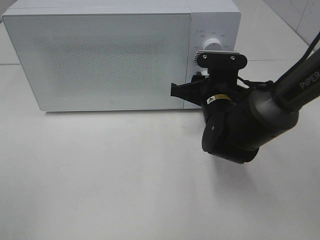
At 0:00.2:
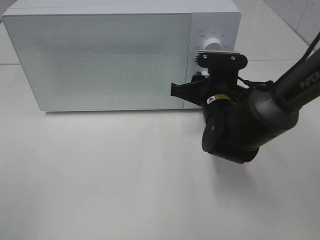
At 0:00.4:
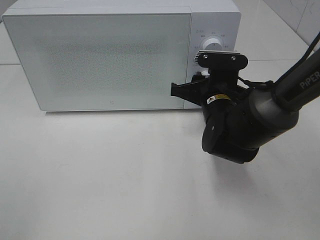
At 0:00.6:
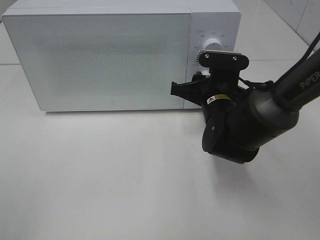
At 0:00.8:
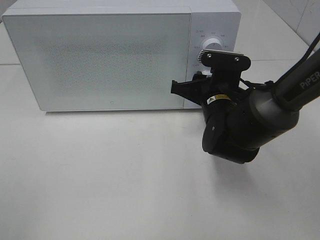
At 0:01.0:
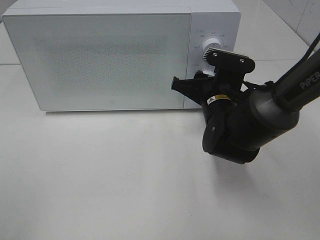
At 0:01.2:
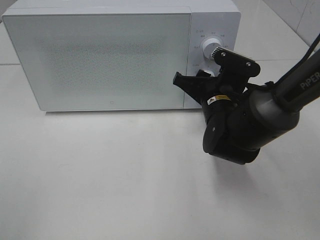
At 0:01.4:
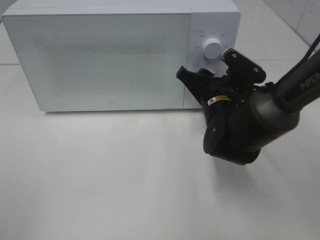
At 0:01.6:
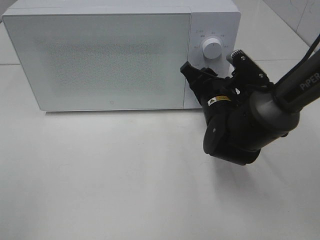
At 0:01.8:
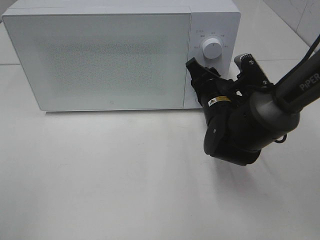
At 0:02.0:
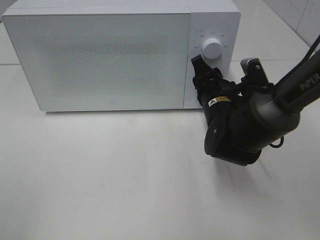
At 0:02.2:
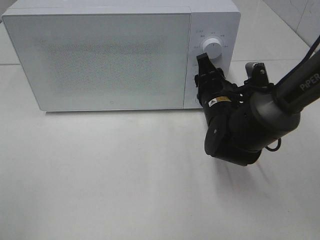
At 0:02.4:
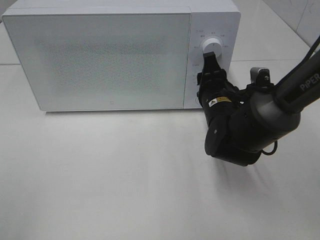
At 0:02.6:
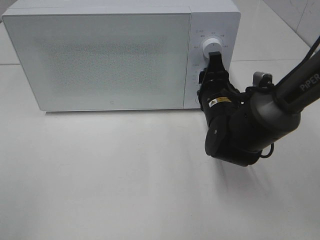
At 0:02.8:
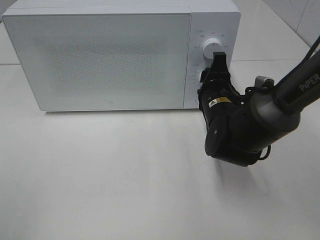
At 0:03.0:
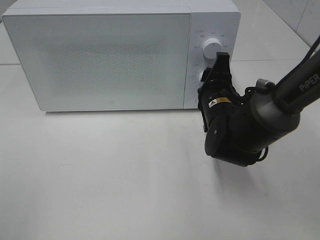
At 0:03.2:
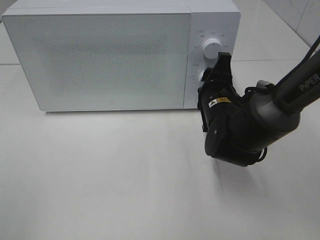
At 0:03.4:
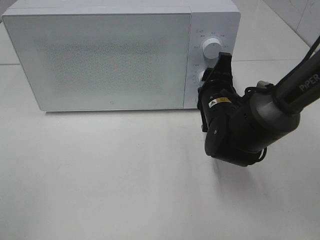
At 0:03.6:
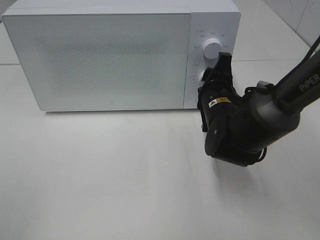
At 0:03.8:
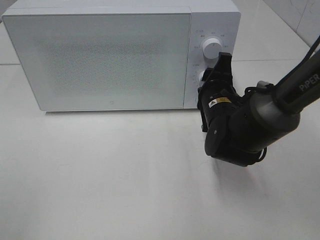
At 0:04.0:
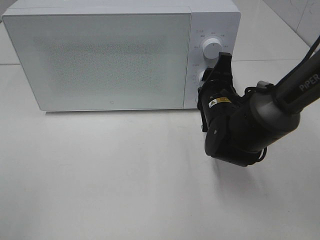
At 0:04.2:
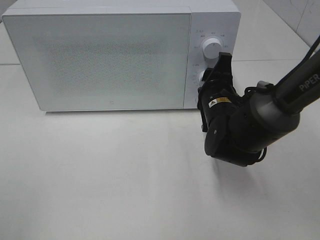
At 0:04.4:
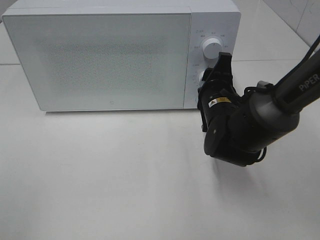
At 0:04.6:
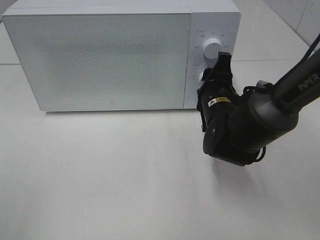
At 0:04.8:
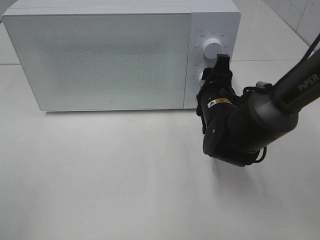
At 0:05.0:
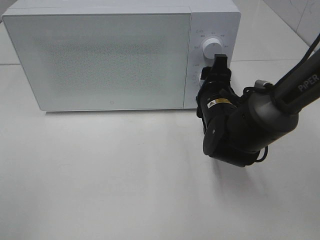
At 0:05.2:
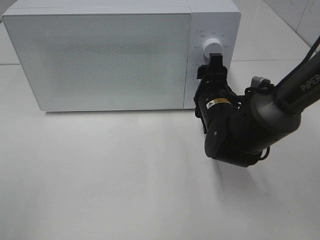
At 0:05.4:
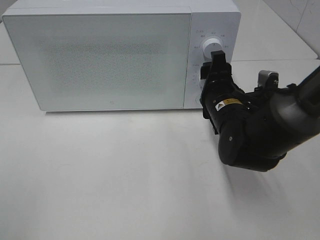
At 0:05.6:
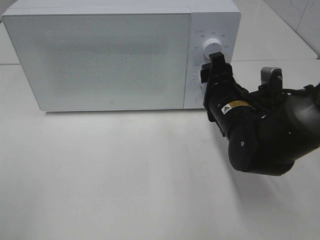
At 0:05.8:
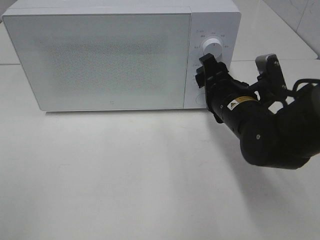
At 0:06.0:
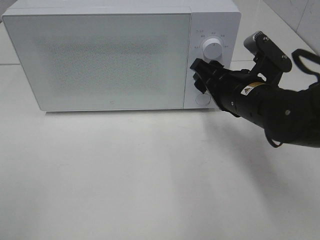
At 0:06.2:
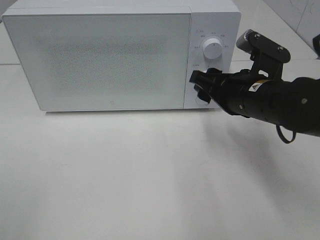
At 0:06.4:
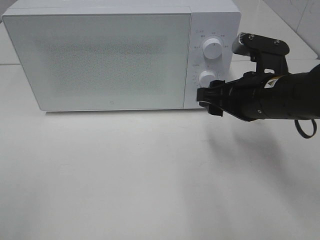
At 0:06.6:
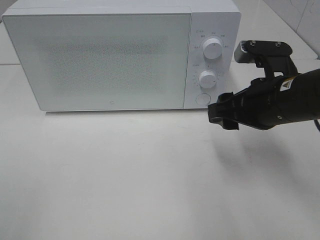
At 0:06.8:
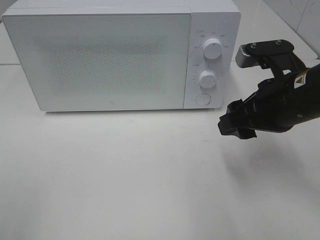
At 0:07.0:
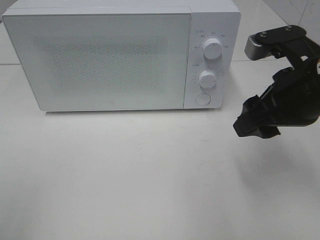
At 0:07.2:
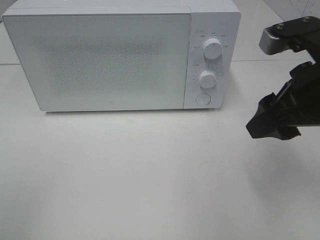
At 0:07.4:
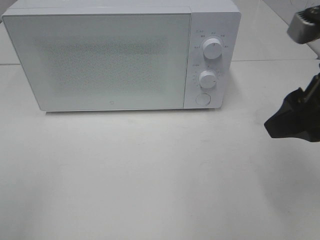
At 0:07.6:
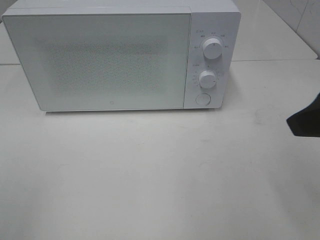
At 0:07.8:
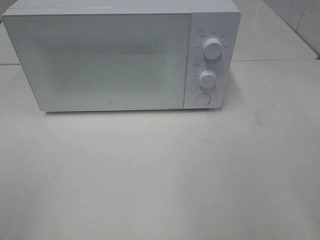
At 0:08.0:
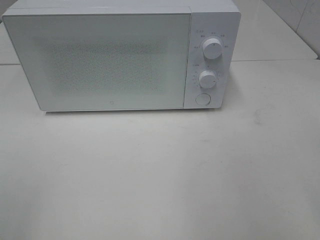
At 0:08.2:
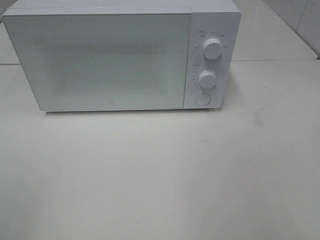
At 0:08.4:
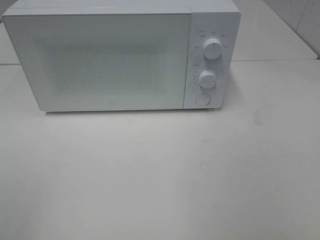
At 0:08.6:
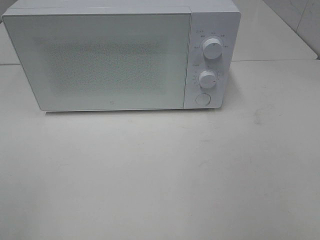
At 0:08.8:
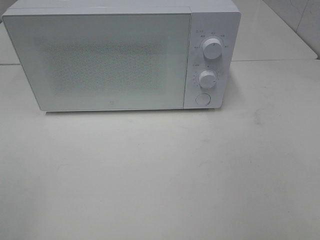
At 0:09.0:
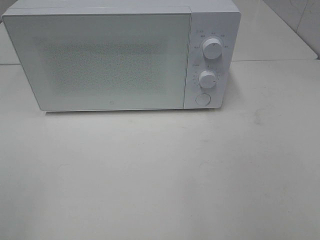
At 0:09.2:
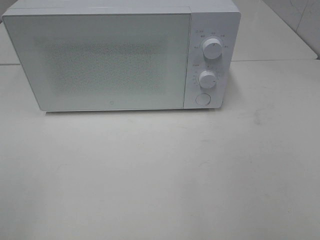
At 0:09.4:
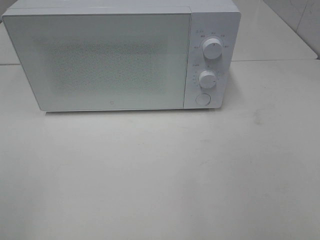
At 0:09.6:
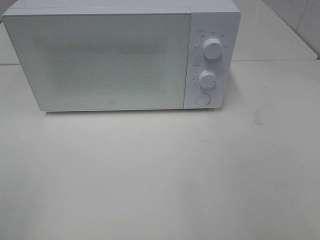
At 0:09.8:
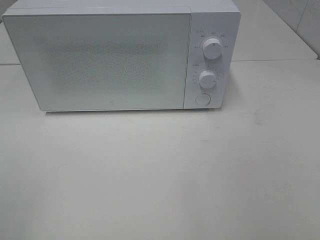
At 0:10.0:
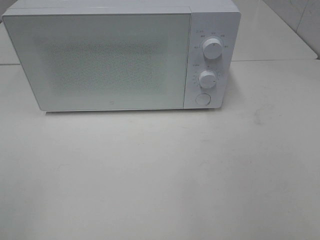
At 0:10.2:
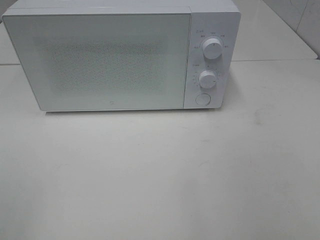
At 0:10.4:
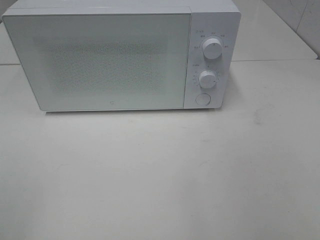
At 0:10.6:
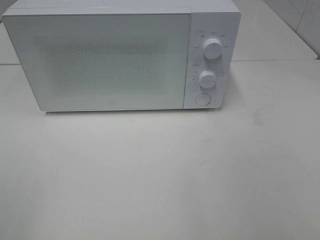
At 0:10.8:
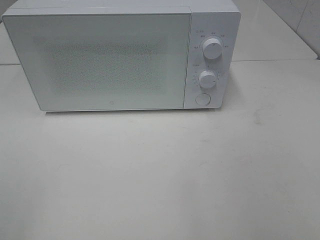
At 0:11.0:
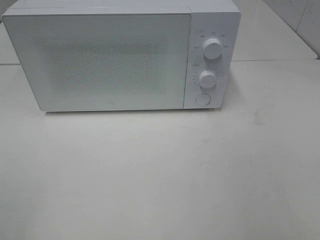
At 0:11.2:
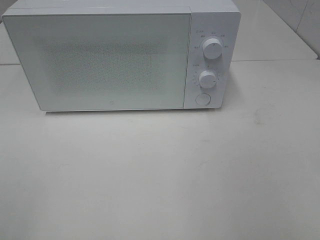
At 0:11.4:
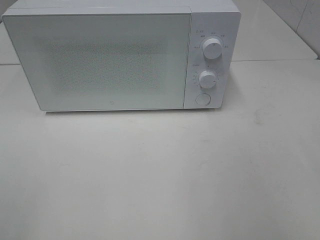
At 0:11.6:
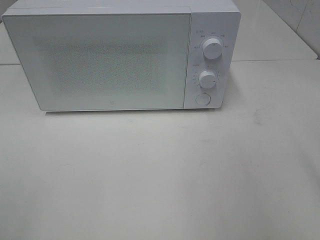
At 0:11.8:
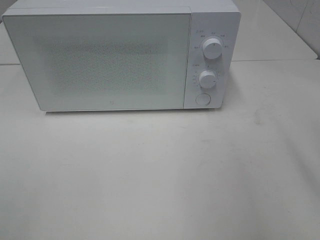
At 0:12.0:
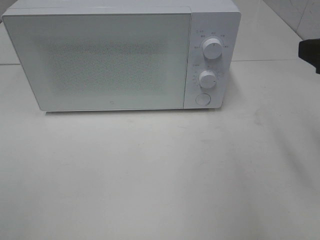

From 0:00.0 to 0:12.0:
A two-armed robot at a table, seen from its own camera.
Task of the whole recording: Heat the burger.
Step, from 0:00.0 to 0:05.4: Right hand: twist timer button.
From 0:03.0 to 0:04.4: Neither gripper changes place.
From 0:04.4 to 0:06.0: The right gripper heads upward, covering about 5 cm.
From 0:06.0 to 0:07.6: The right gripper is displaced upward, backward and to the right by approximately 20 cm.
From 0:07.6 to 0:09.0: The right gripper goes some 15 cm backward and to the right.
From 0:09.0 to 0:10.4: Both grippers stay about where they are.
From 0:10.4 to 0:12.0: The right gripper travels forward by some 20 cm.

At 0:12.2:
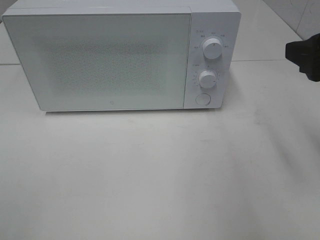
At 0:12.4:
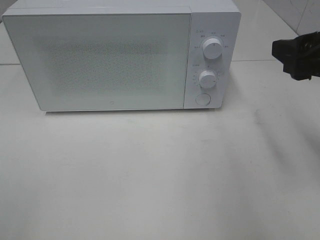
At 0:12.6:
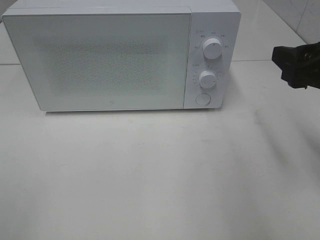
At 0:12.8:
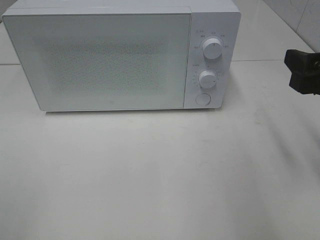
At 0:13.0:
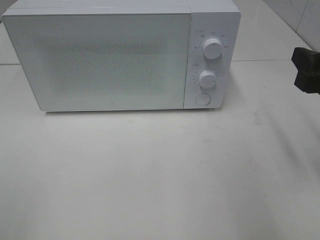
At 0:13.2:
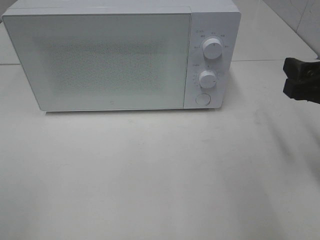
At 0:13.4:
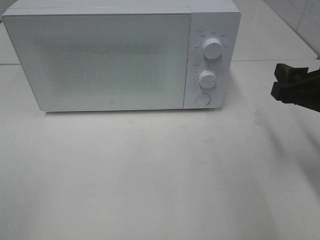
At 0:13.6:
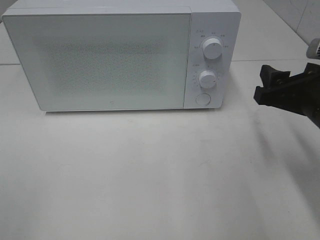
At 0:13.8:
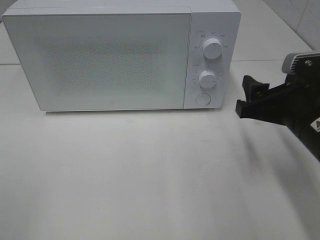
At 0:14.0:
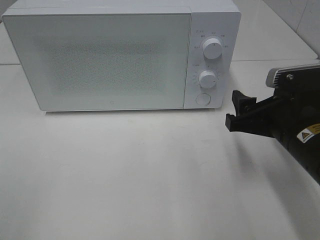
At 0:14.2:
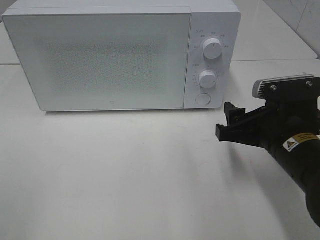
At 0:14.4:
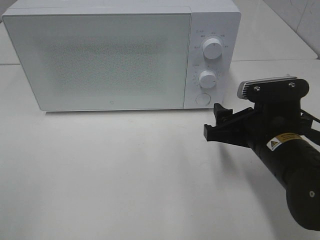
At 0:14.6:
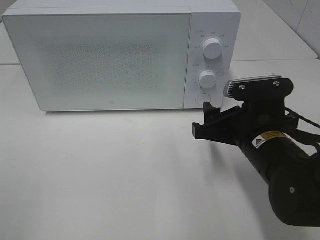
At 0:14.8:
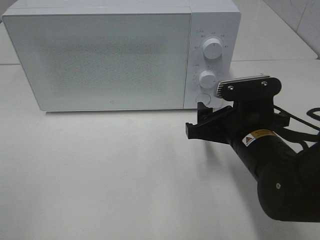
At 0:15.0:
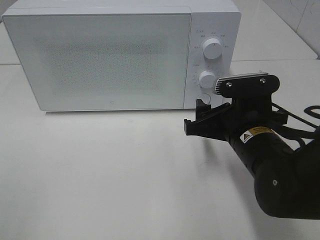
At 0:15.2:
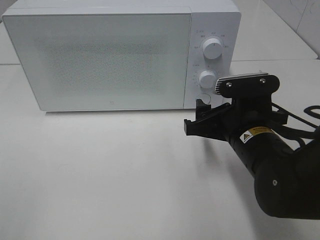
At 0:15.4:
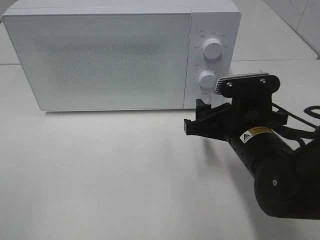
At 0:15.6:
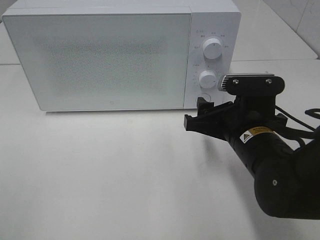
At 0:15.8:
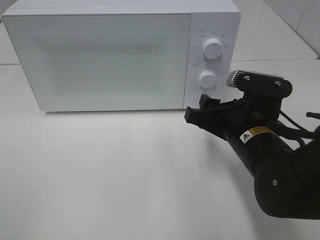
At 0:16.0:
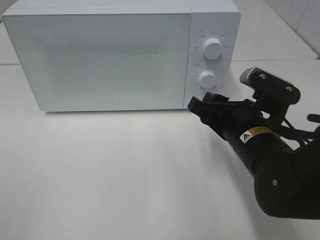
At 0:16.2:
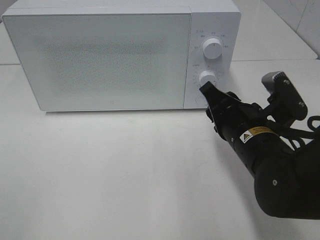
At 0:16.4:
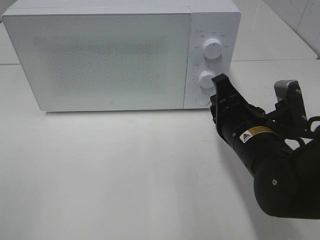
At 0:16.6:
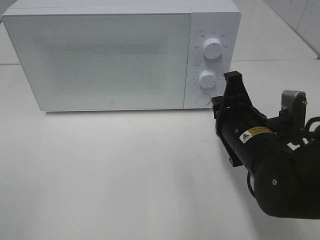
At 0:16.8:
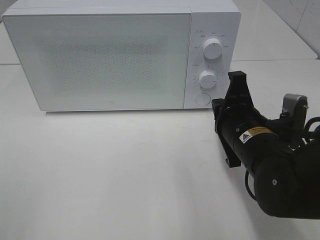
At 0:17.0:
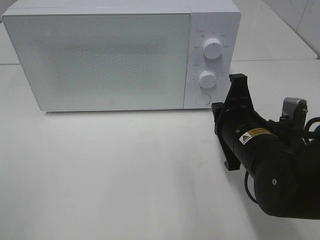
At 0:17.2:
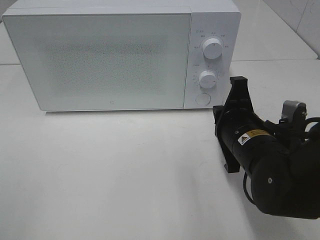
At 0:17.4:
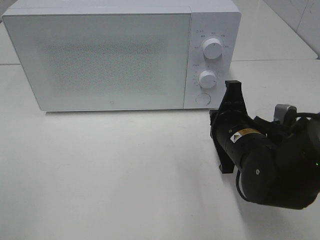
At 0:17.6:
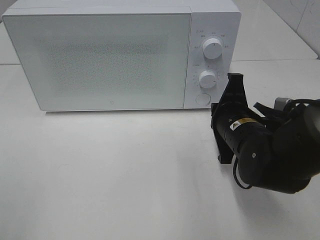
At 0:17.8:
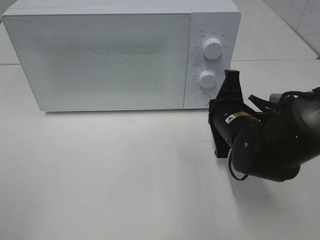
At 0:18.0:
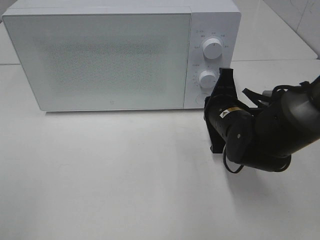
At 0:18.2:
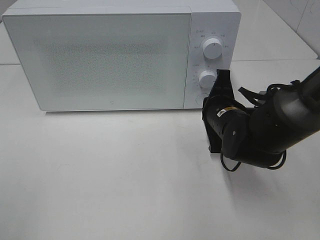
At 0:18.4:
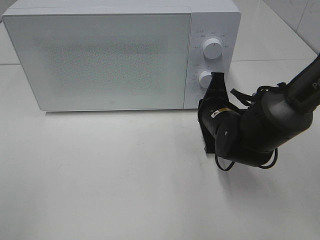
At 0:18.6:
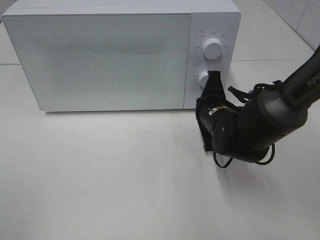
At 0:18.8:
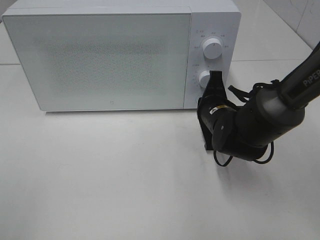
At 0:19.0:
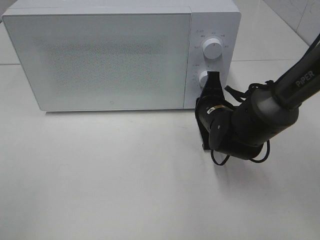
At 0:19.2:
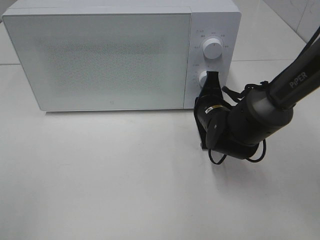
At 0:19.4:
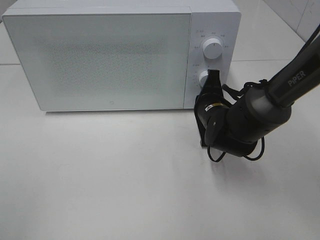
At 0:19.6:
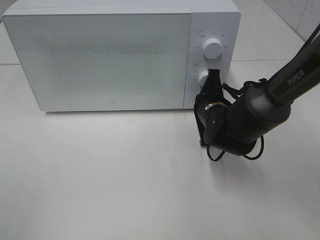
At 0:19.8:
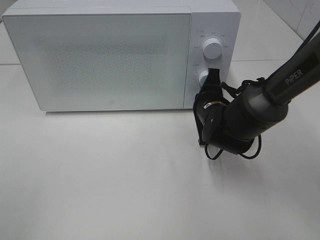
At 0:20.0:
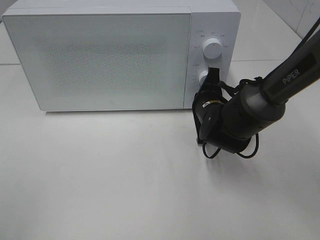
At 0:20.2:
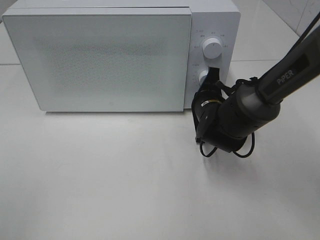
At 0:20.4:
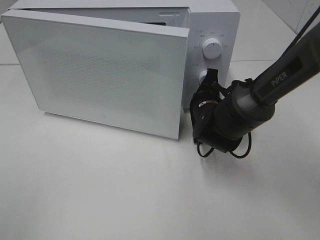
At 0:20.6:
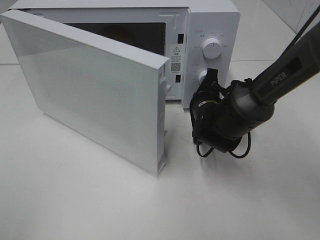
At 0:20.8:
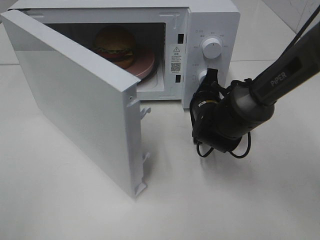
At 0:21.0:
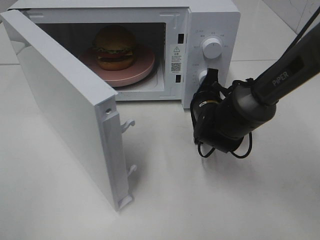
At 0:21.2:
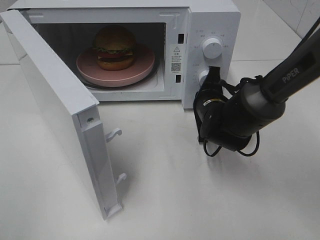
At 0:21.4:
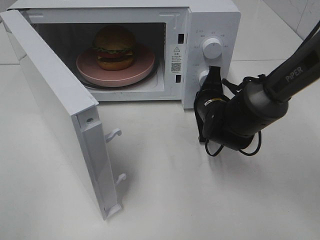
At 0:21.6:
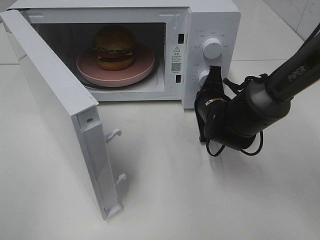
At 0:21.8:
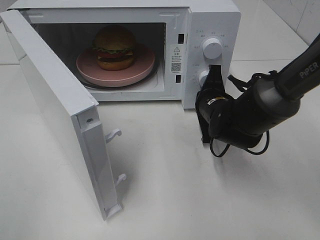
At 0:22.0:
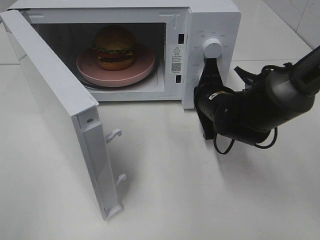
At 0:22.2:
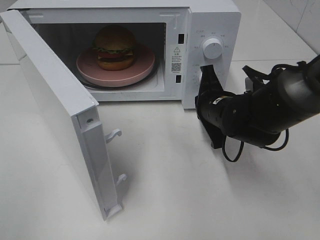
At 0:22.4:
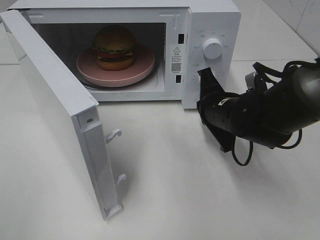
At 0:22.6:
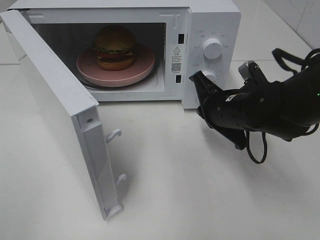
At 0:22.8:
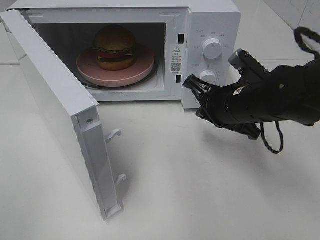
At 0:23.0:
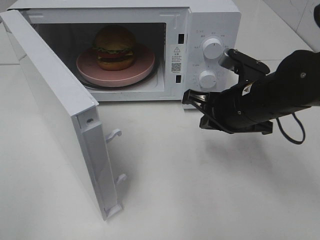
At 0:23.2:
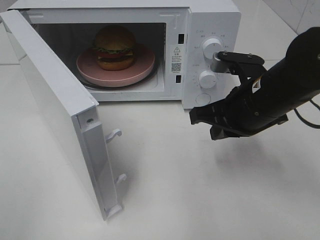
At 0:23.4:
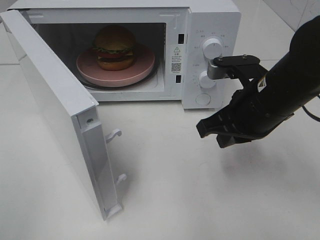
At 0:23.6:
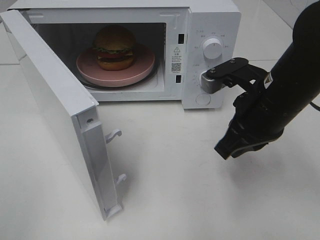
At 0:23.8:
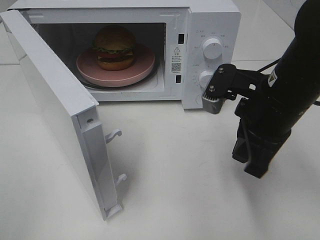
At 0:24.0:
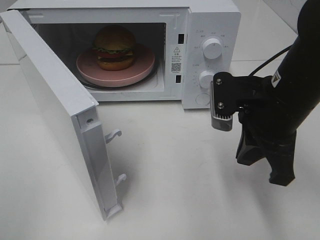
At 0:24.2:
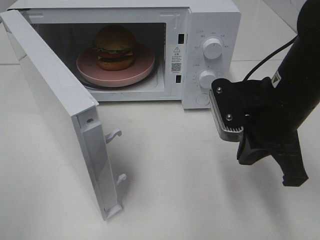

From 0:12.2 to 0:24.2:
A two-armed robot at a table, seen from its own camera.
Task of the whole recording: Heat the burger.
Step, from 0:12.2 to 0:22.6: Right hand: press the switch.
From 0:12.2 to 0:13.8: The right gripper travels downward by some 10 cm.
From 0:13.8 to 0:15.2: The right gripper travels to the left by some 5 cm.
From 0:15.2 to 0:16.6: The right gripper closes.
From 0:16.6 to 0:18.2: The right gripper shifts about 10 cm forward.
From 0:18.2 to 0:19.8: There are only small adjustments of the grippers.
From 0:21.2 to 0:22.6: The right gripper goes approximately 5 cm backward.
From 0:22.6 to 0:24.2: The right gripper travels upward and backward by some 10 cm.
